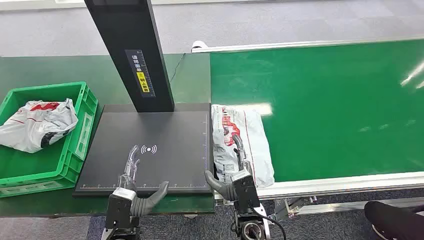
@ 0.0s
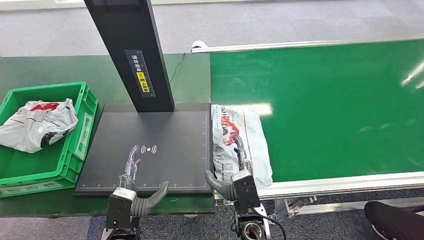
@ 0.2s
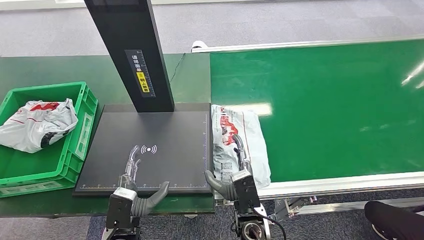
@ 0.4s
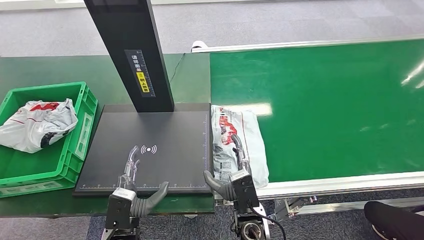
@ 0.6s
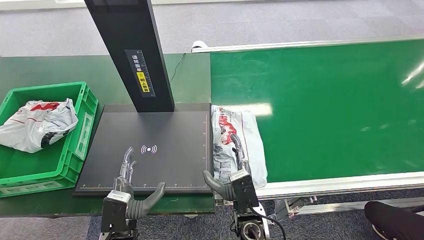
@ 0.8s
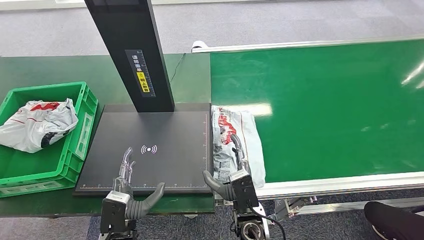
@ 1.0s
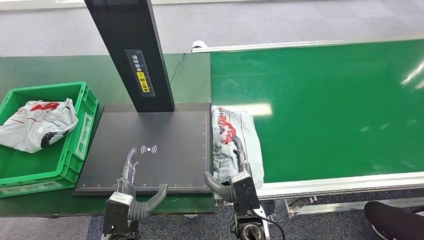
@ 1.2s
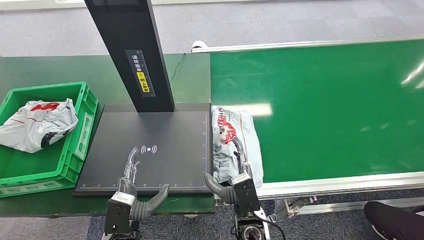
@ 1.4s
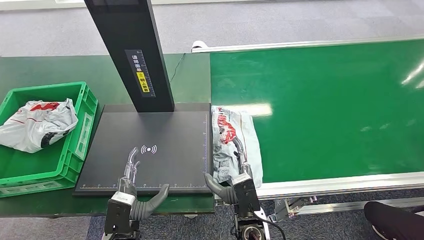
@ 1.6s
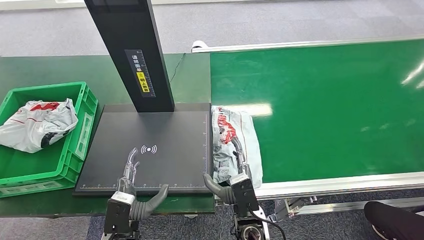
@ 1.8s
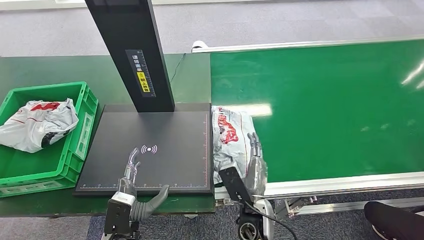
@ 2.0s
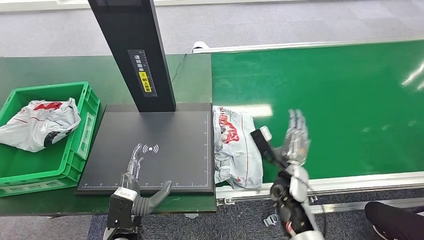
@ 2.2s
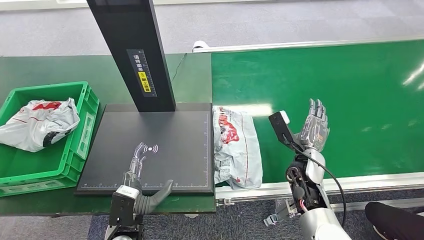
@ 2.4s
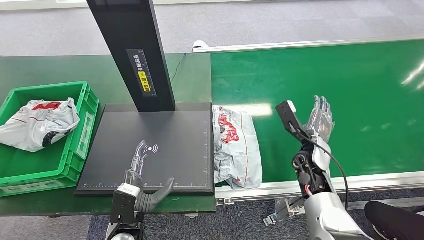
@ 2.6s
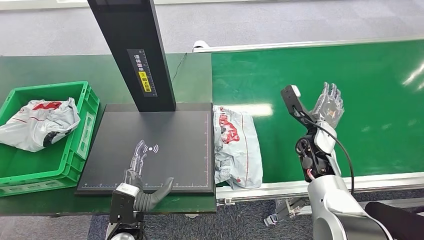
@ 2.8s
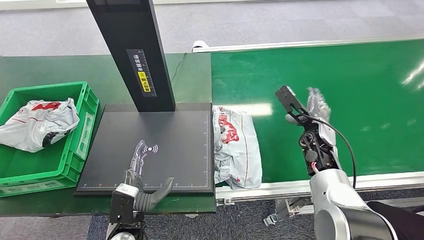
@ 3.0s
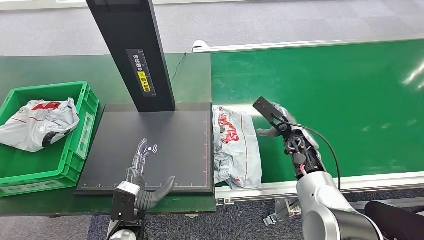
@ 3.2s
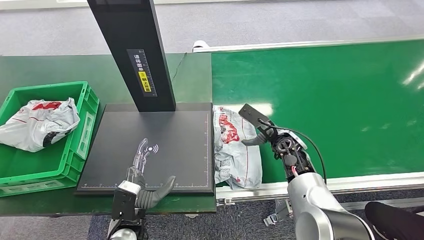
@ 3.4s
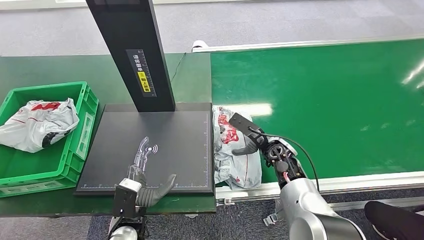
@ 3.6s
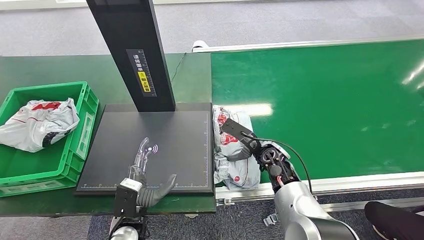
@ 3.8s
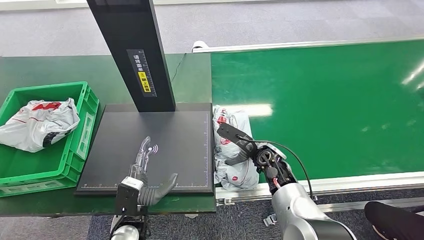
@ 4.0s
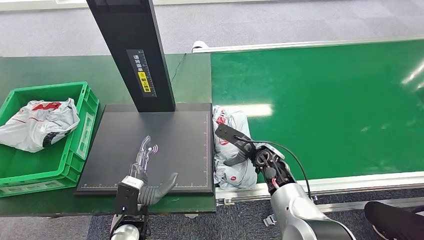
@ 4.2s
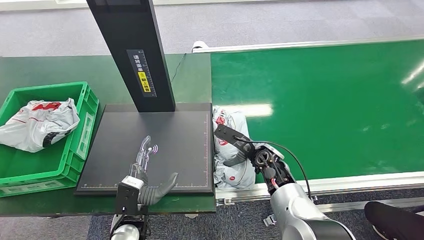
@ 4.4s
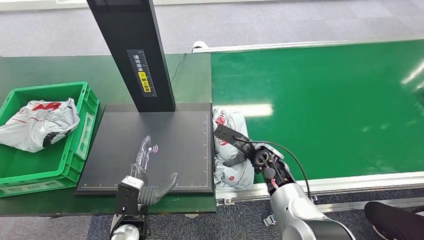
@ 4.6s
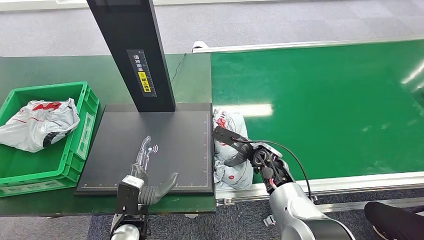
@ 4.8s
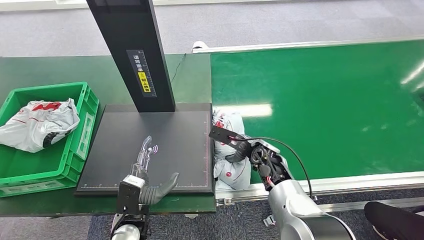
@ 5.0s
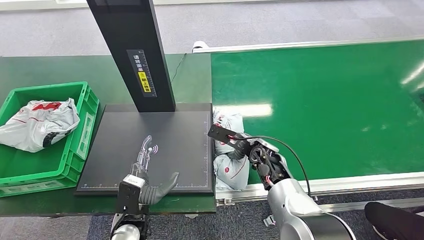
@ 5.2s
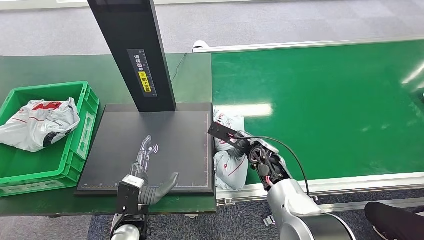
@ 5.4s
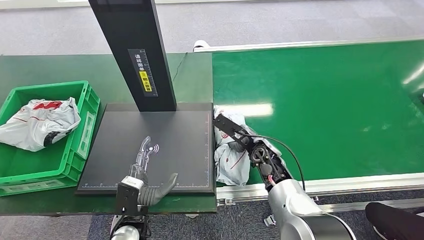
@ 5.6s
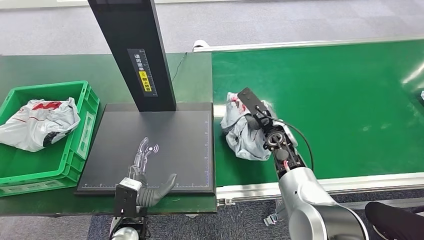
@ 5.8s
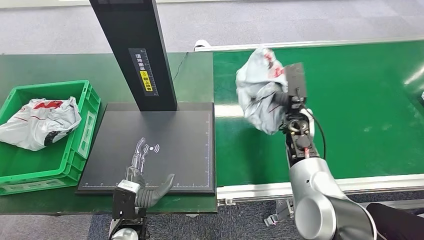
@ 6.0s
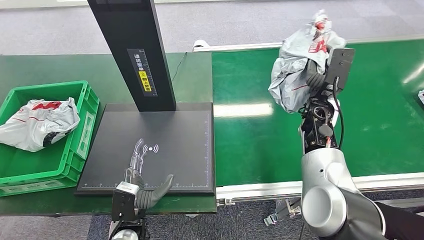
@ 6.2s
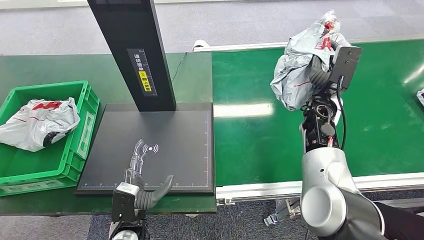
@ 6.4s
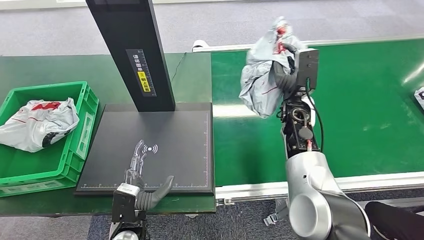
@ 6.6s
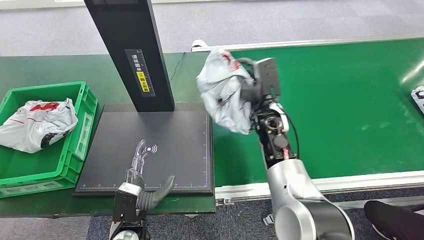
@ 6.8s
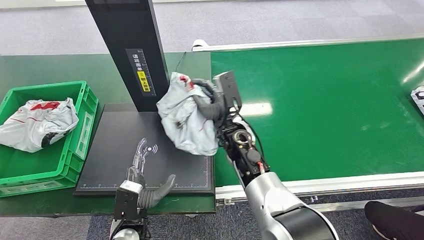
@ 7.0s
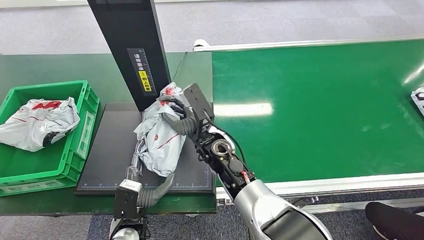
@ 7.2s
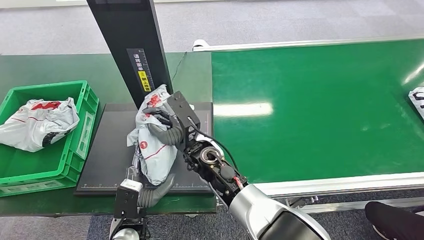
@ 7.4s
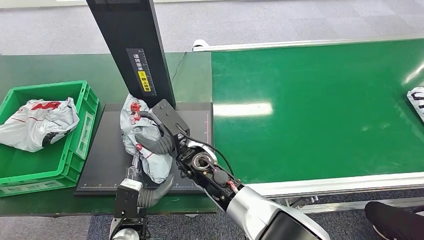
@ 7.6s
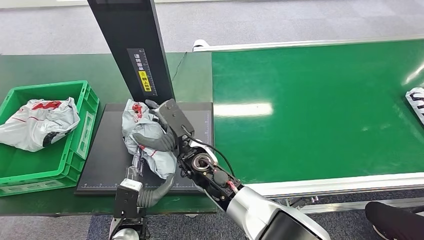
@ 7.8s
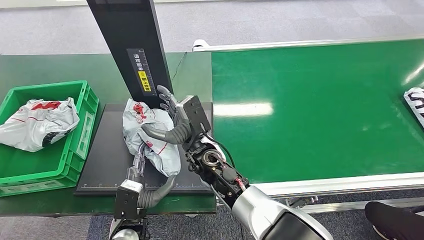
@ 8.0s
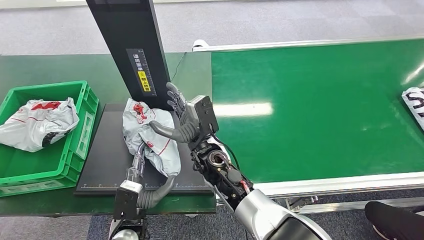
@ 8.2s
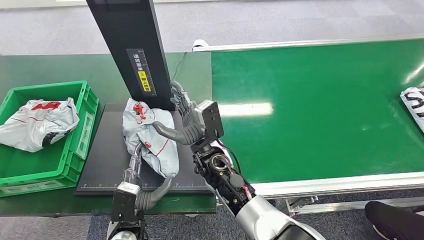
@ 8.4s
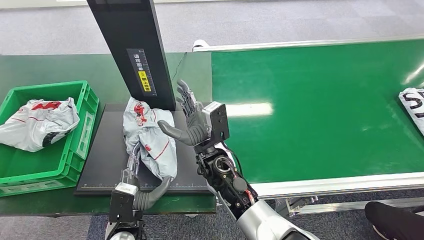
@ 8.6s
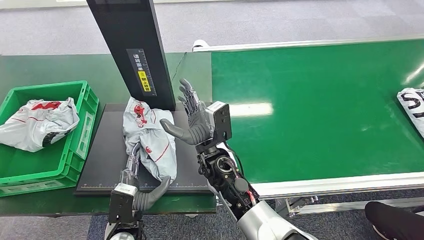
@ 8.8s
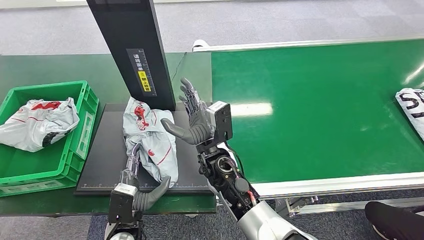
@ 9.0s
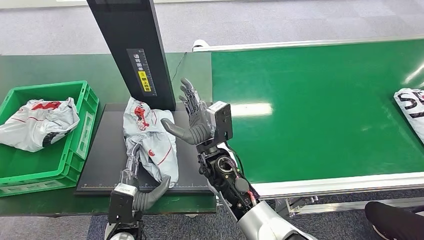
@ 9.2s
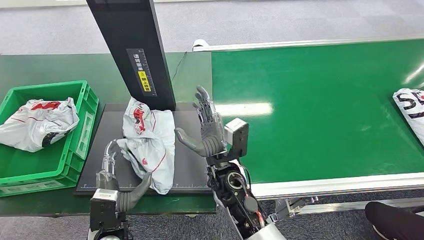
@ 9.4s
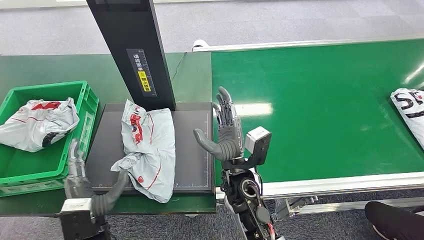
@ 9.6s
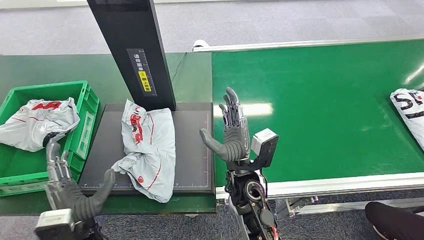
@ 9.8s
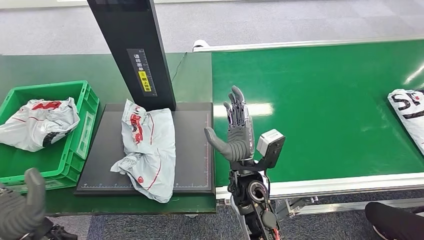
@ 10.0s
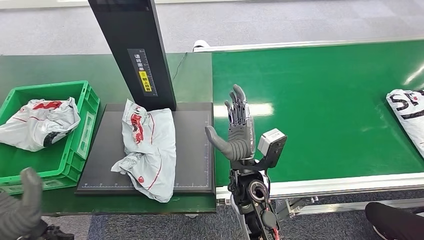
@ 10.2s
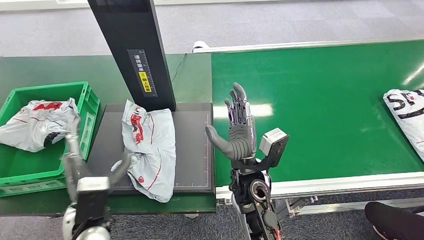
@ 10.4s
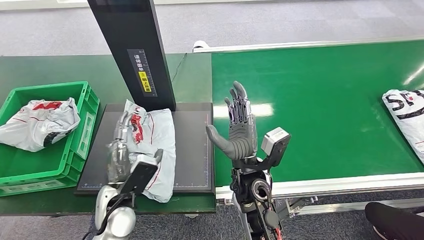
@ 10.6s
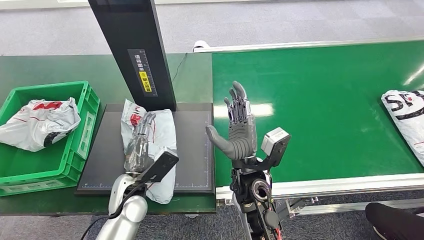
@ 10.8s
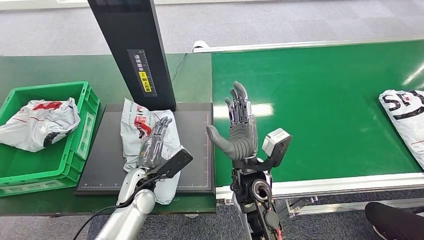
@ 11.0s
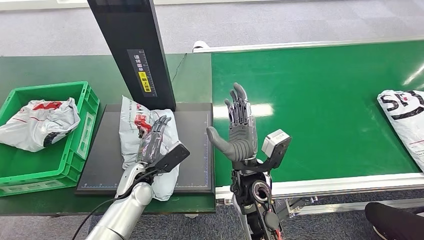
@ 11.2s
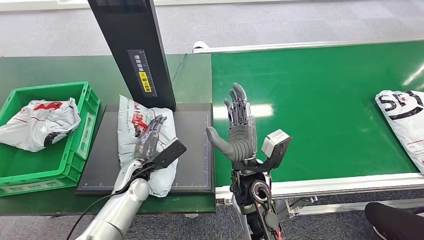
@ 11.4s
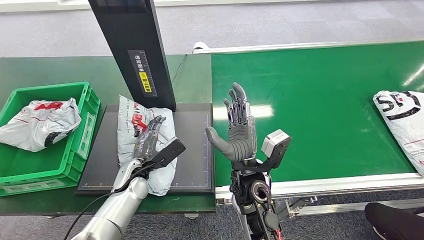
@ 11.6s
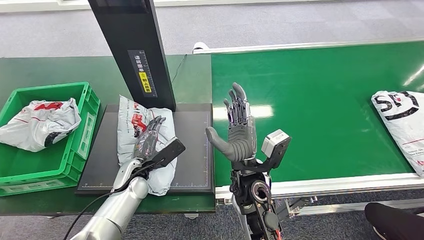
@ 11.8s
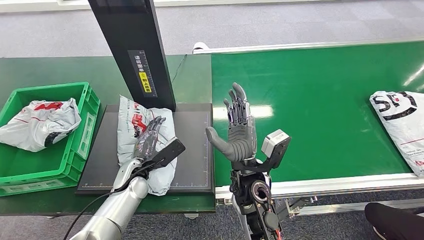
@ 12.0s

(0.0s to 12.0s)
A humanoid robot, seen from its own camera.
Task of the whole recording: Weigh the package on the weighing device and place it in the left basket.
Step, 0.0s - 6.6s: Pick up the package from the conveyor belt.
Step, 6.8s - 9.0s: Place the package onto the inbound machine.
1.6s - 3.0s: The right hand travels forward and to the right by roughly 30 cm.
3.0s - 4.4s: The right hand moves to the left, roughly 15 cm.
10.4s - 12.0s: The left hand heads forward and downward, covering some 15 cm.

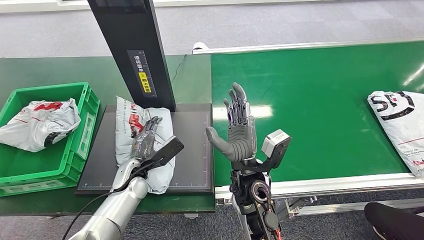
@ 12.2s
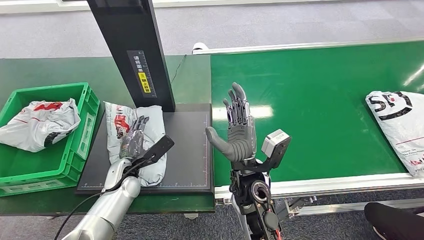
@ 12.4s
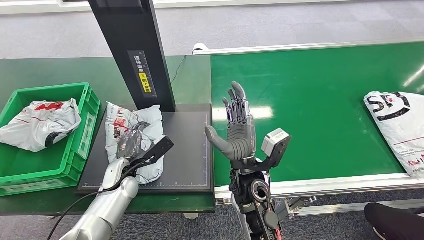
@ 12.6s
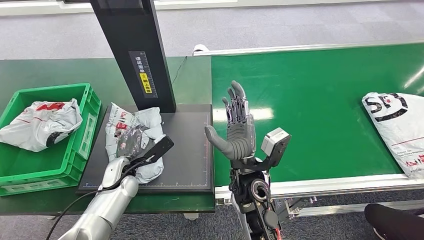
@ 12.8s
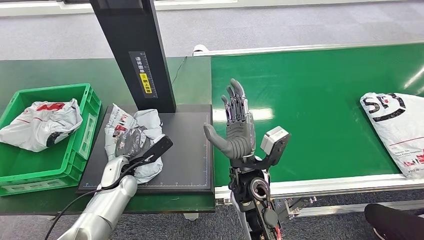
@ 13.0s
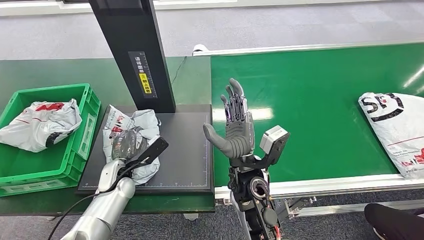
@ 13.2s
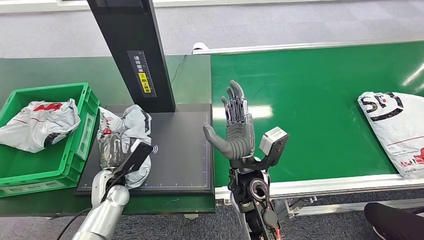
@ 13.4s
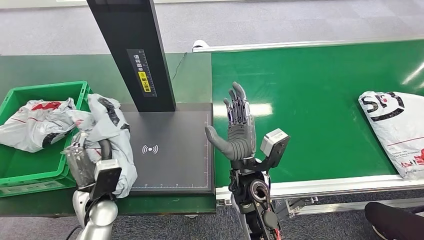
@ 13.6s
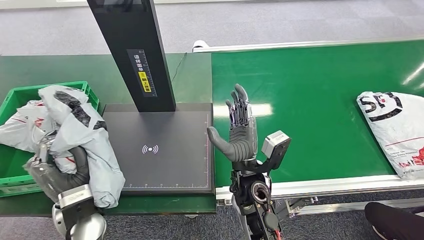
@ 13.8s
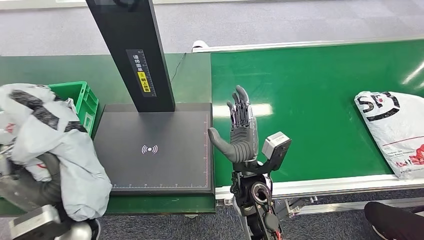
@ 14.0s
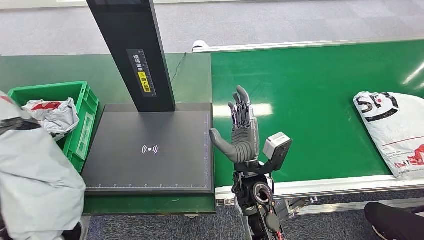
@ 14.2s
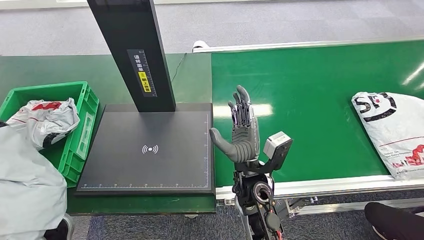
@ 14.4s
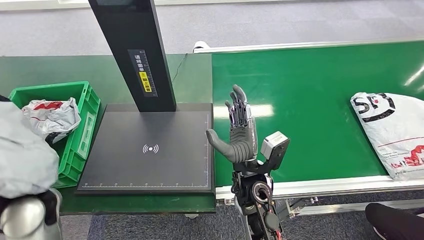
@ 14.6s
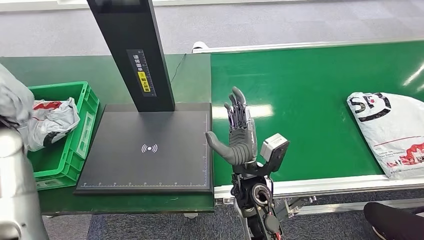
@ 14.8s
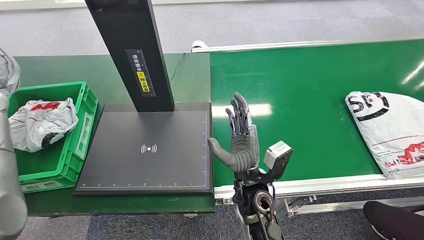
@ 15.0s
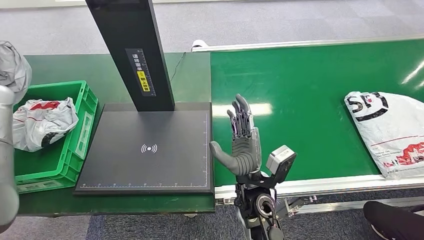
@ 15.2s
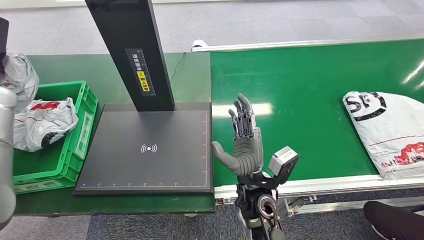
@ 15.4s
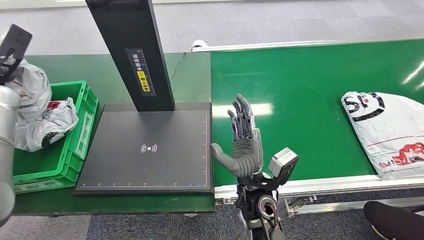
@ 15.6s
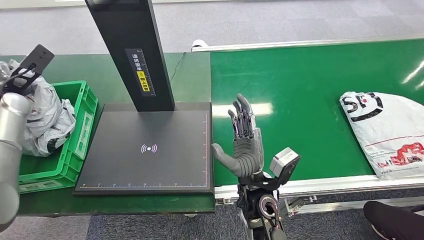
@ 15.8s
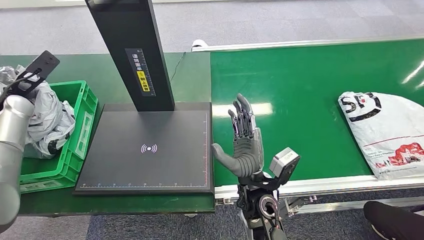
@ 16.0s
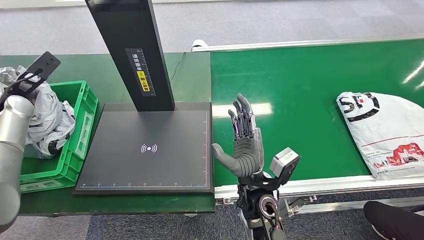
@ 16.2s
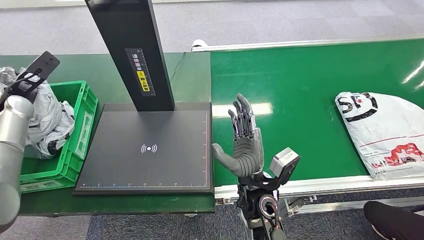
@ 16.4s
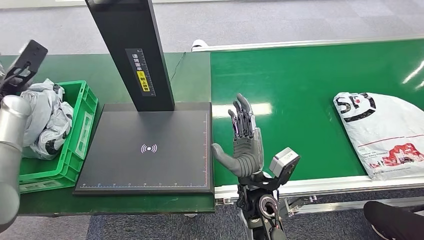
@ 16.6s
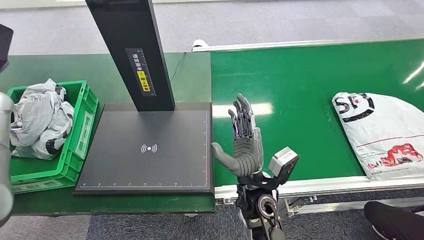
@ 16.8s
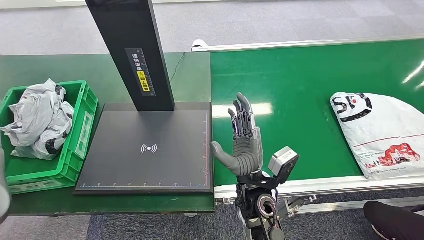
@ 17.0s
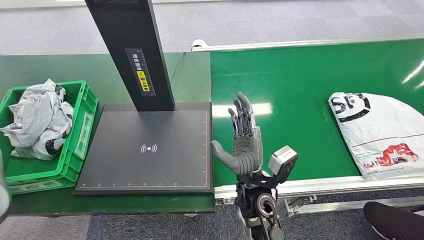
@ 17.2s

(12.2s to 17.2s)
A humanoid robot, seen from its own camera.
Task of the whole recording: Weigh the package on the weighing device and place it in the left basket.
Step, 12.2s - 14.2s: Pick up the package from the inbound machine.
